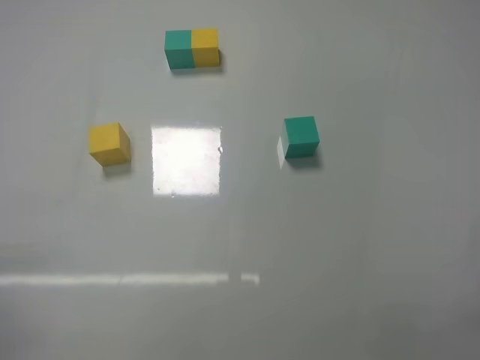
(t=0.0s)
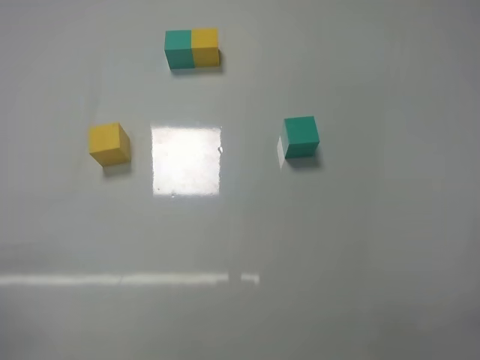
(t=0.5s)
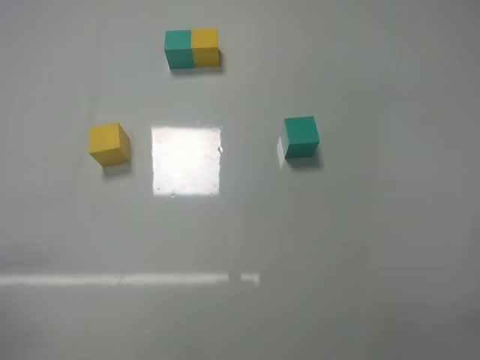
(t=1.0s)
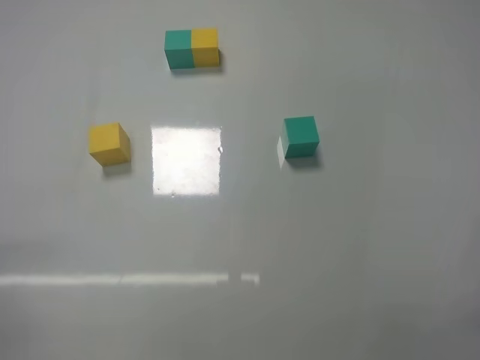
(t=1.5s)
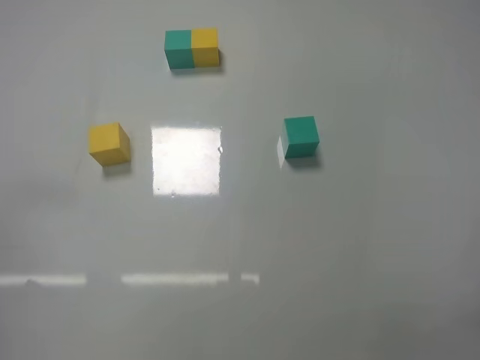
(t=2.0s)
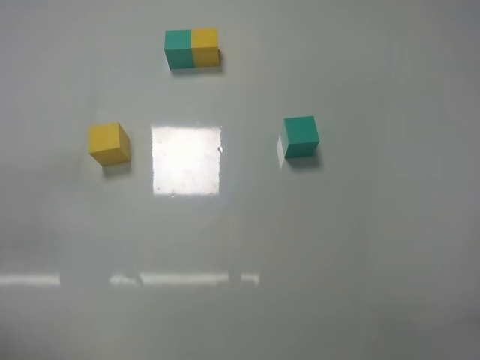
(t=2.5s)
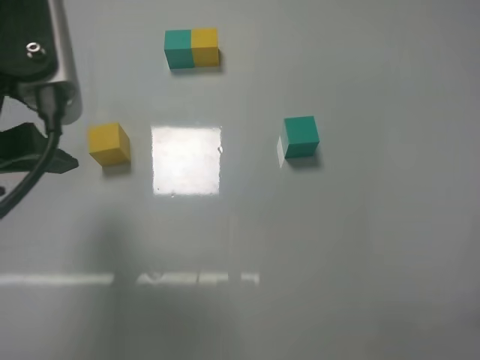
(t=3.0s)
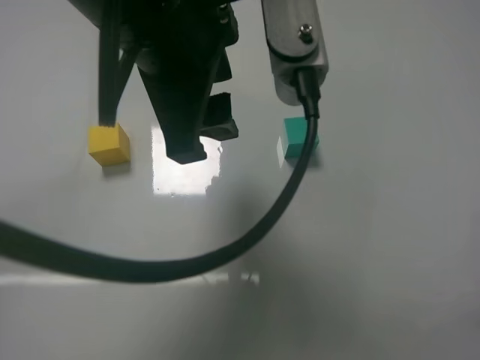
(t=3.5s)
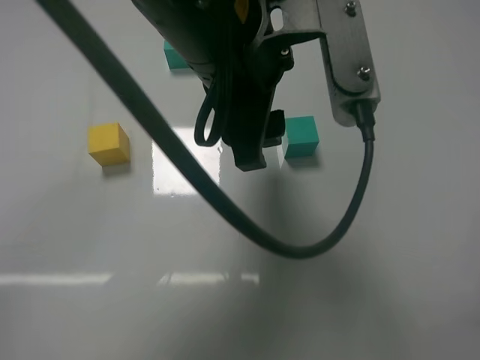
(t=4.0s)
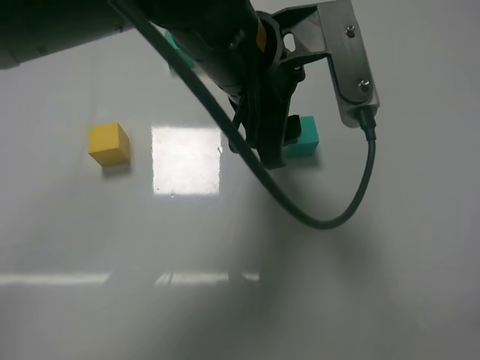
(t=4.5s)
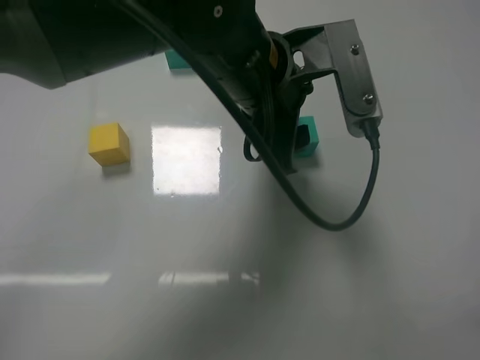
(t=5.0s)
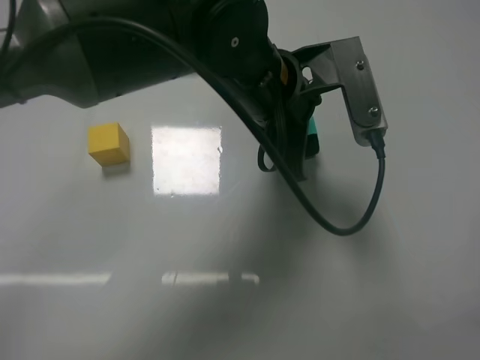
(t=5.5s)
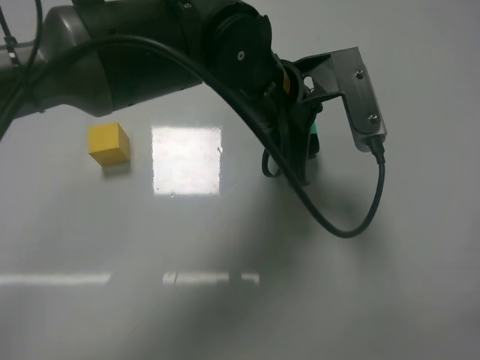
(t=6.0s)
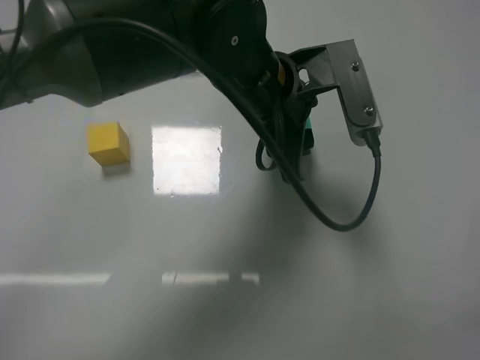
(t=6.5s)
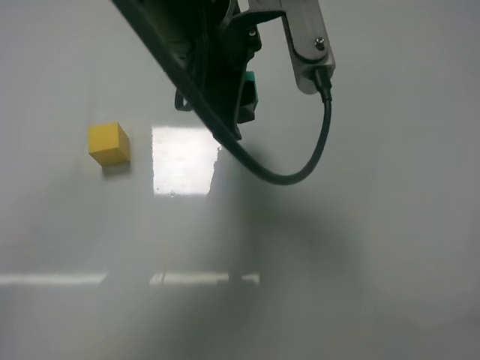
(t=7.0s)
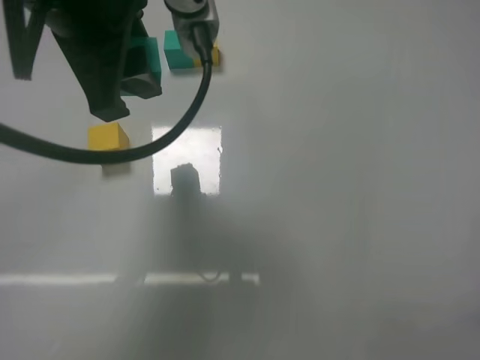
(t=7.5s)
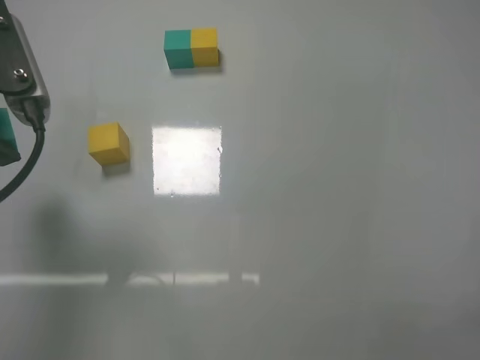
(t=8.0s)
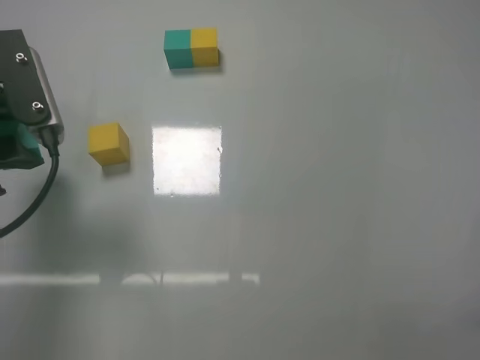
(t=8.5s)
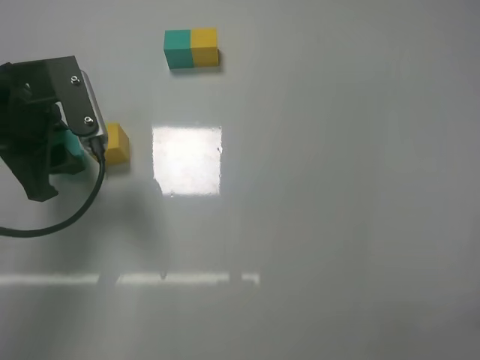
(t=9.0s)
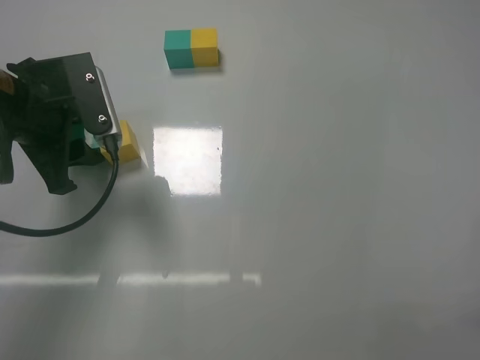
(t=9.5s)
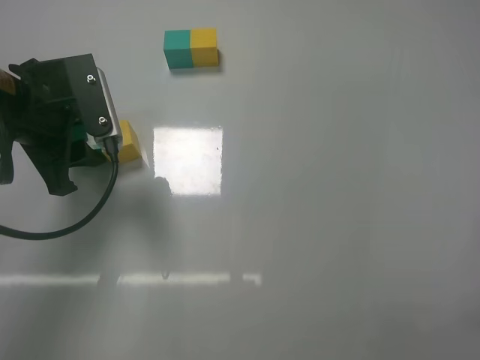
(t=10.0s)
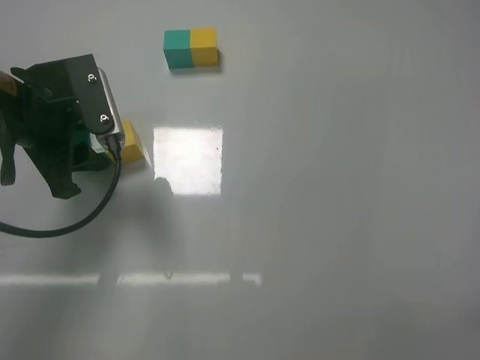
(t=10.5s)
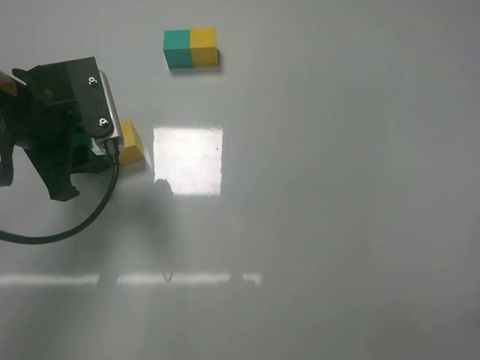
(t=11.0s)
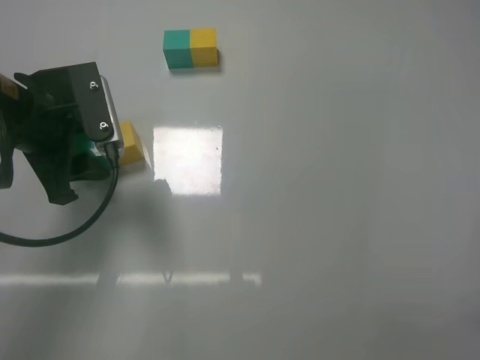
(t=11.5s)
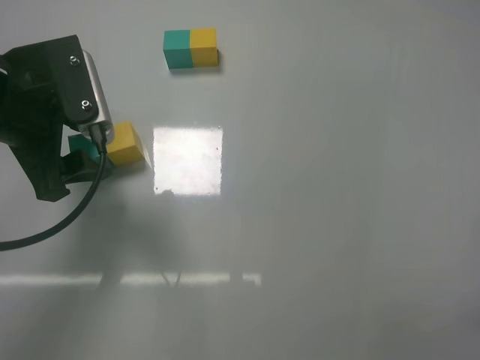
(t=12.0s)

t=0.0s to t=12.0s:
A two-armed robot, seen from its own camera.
Task of the whole recording: According to the building block template in front, assemble the scattered blocks together.
Step, t=0.0s to t=6.0s: Grasp the green block with left gripper.
Step, t=6.5s to t=11.5s: Put the green cube on the left of the yellow cube with the left gripper.
t=2.0s to t=4.0s: The left gripper heads to the right and forward, covering some 40 cm.
t=4.0s to t=6.0s: The left gripper travels forward and downward by some 10 cm, and closes its fingers.
t=6.0s to t=8.0s: The left gripper is displaced to the left by some 25 cm.
t=8.0s to t=10.0s: The left gripper is displaced forward and downward by roughly 10 cm.
t=10.0s to t=12.0s: The left gripper opens its fingers.

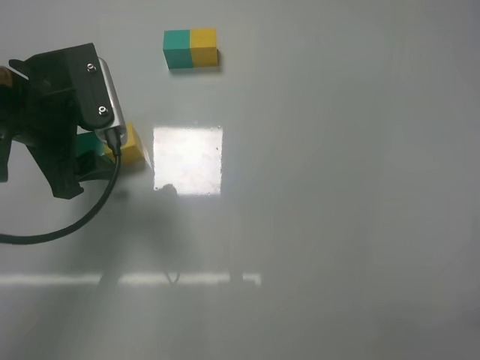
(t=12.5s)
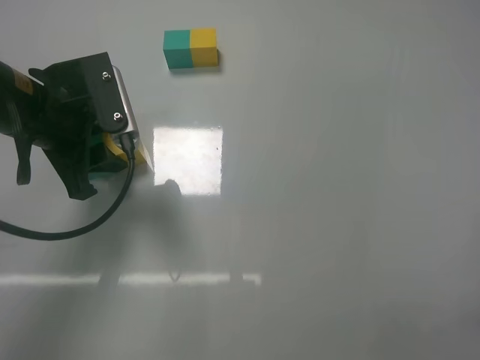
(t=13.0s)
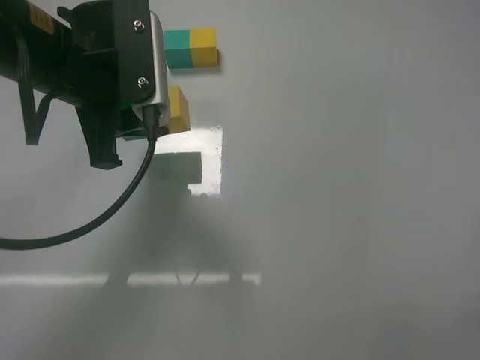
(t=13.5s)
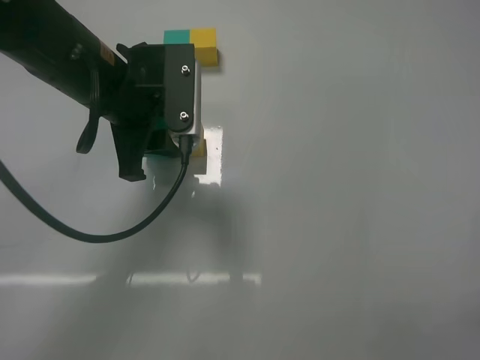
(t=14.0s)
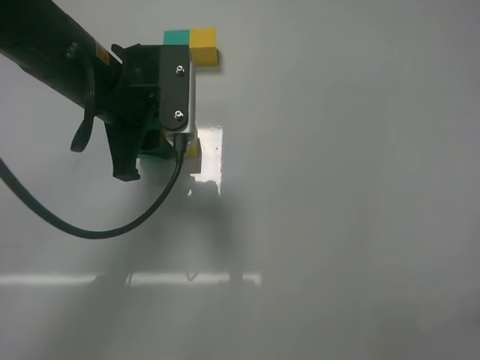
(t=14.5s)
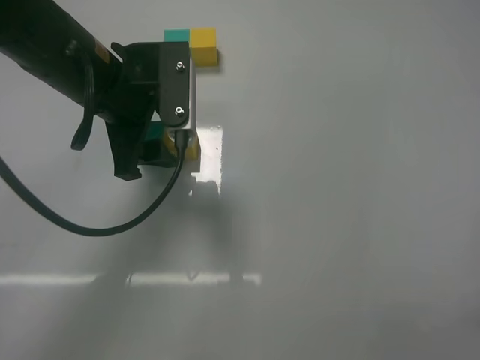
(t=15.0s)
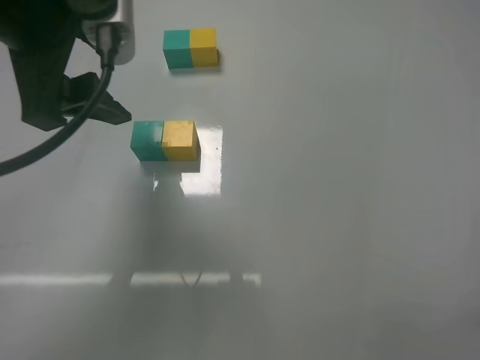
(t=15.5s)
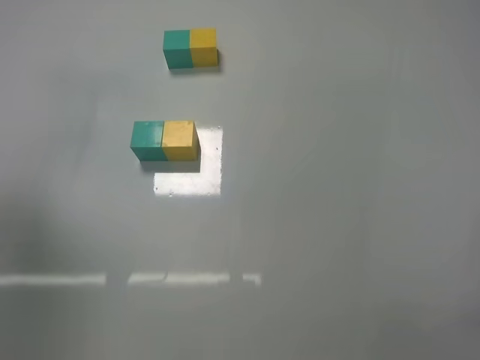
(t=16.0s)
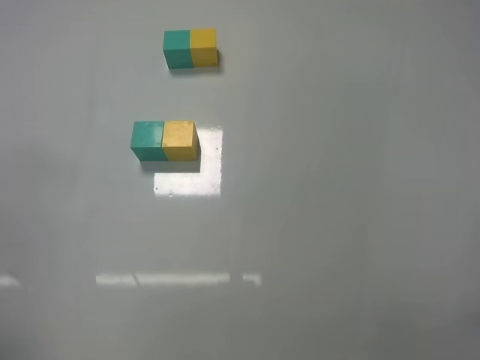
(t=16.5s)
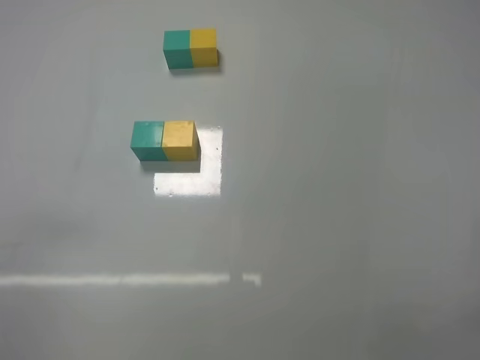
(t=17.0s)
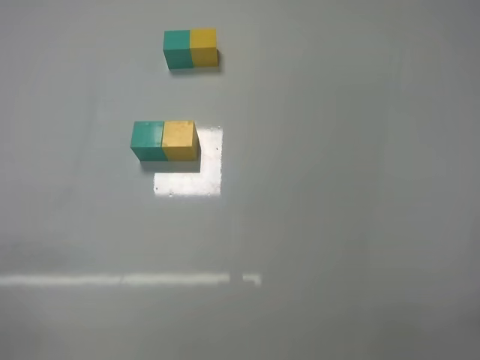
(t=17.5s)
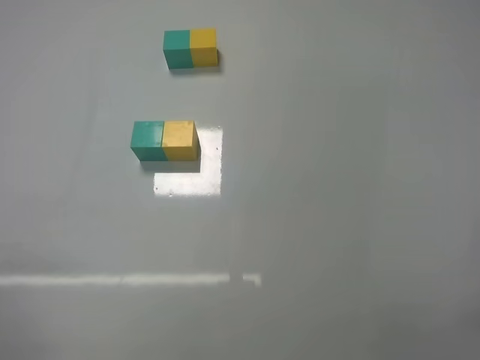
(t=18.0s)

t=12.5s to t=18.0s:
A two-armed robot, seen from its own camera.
Task of the whole recording: According to the building block template in front, assemble the scattered blocks together.
Step, t=12.5s to t=15.0s: Put the yellow cube and green cube in the center of the table with the left gripper.
t=12.5s to t=14.5s: The left gripper is displaced to the right by roughly 5 cm, and closes.
t=14.5s to t=16.0s: The left gripper heads to the left, backward and upward, covering approximately 25 cm, and opens its fingers.
t=16.0s to t=18.0s: The left gripper shifts roughly 30 cm downward and backward.

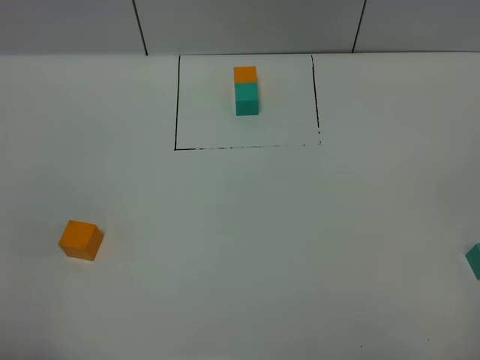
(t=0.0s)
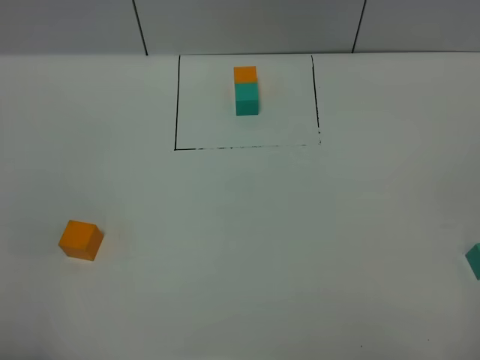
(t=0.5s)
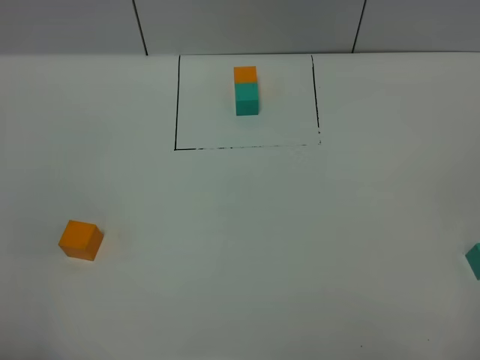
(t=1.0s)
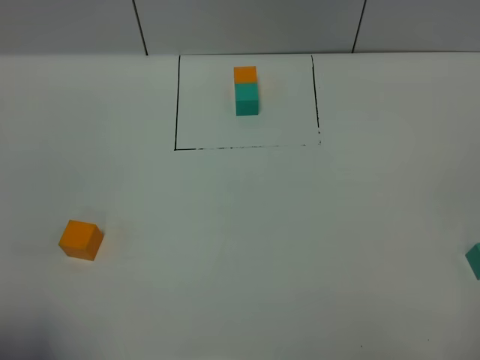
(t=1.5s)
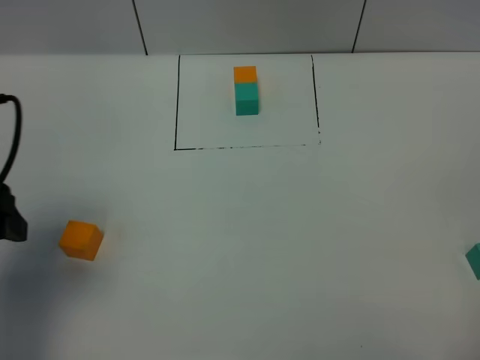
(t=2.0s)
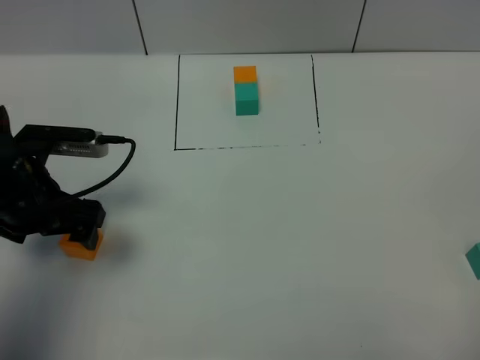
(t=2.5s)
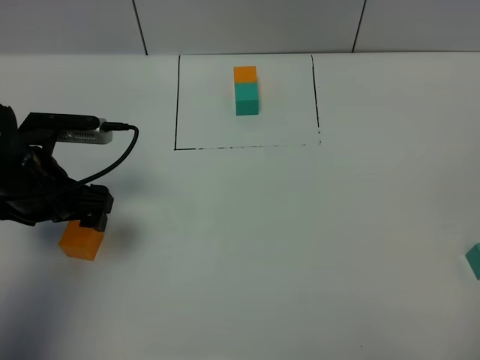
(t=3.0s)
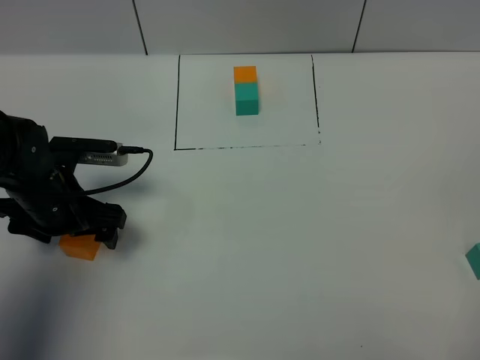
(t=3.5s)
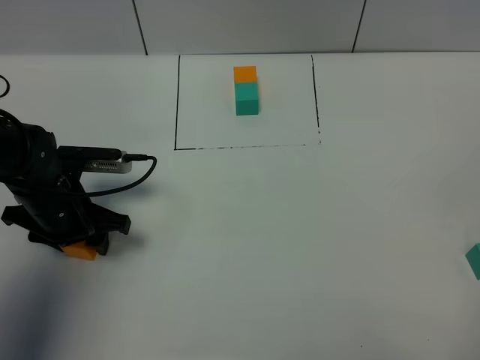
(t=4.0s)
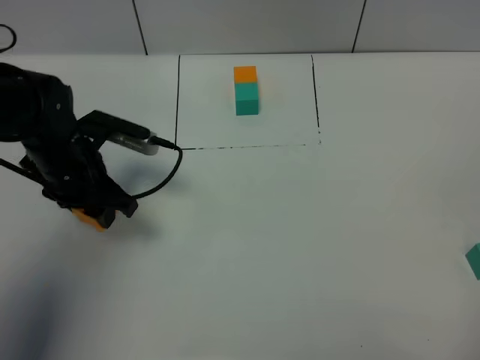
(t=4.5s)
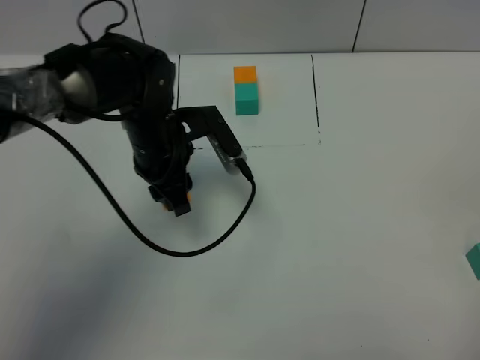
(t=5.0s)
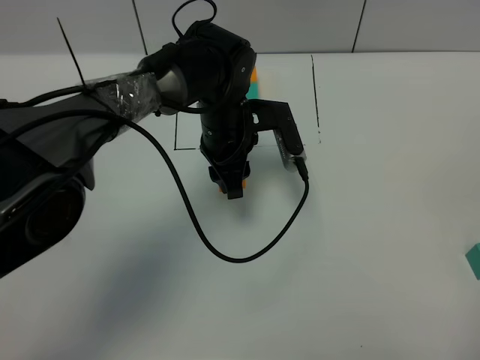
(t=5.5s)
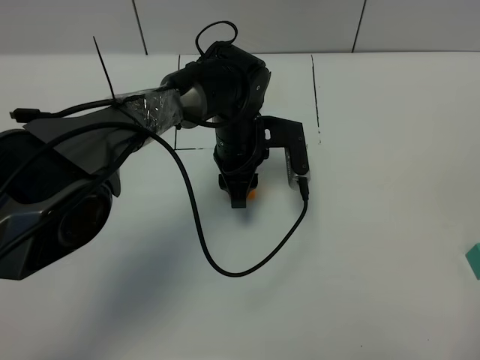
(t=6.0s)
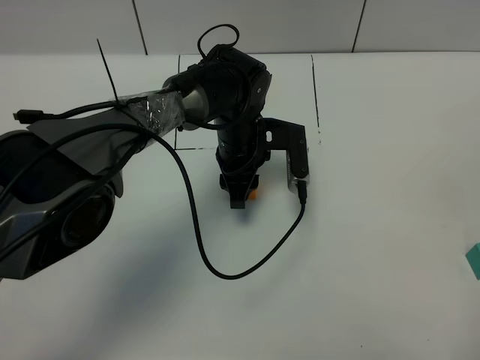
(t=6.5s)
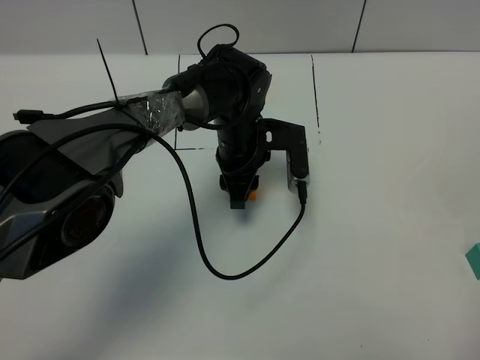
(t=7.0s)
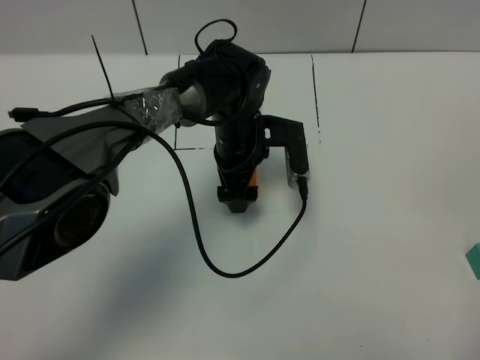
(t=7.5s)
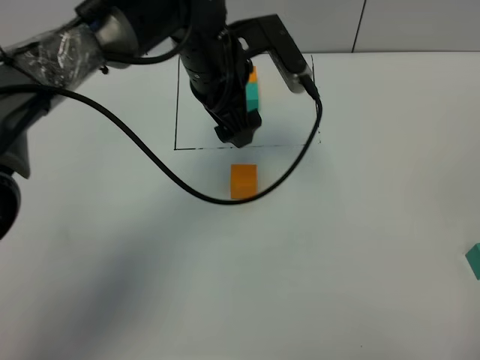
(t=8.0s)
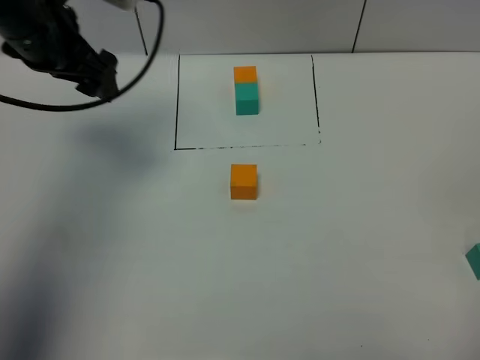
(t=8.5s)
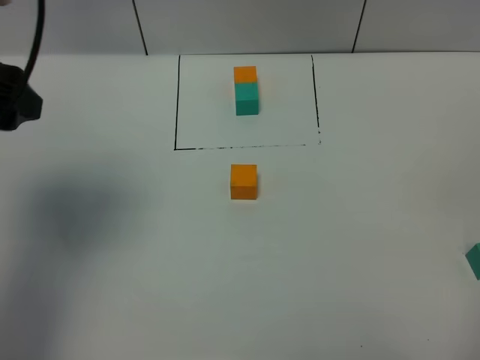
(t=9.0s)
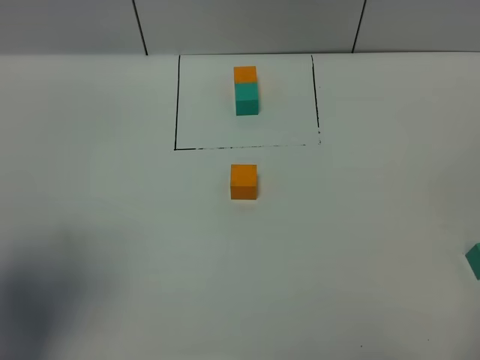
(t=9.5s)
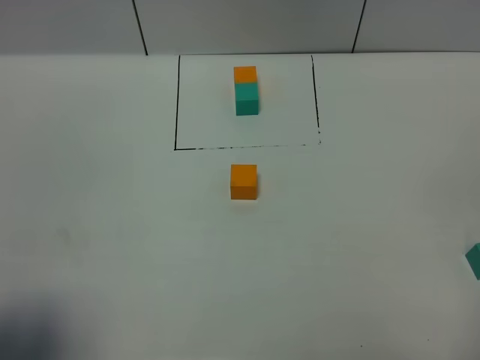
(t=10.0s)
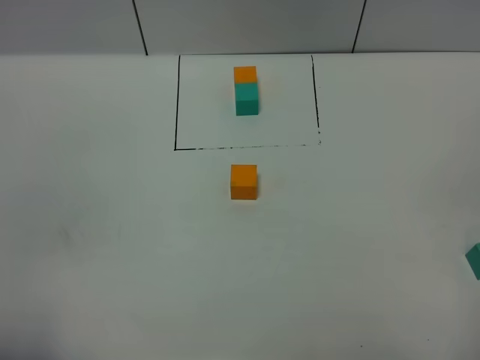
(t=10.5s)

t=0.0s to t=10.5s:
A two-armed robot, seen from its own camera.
Task of the whole recording: According to the building block template in front, assemble the scattered blocks together.
Step, t=2.0s to t=8.0s: Put the orange cube in the center of the table.
t=0.0s to t=2.0s: The left gripper shifts about 20 cm forward.
t=2.0s to t=4.0s: The left gripper travels downward and forward by roughly 20 cm, and closes.
t=4.0s to t=6.5s: The left gripper heads to the right and forward, covering approximately 25 cm.
t=6.5s to t=8.5s: The left gripper moves to the left and upward, about 30 cm, and opens its fingers.
t=8.5s to t=10.5s: The left gripper shifts some 40 cm backward.
